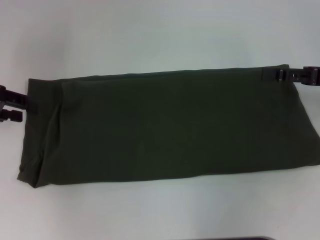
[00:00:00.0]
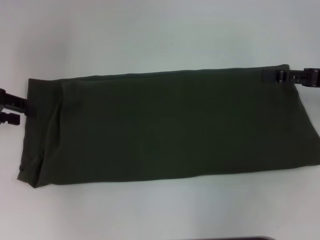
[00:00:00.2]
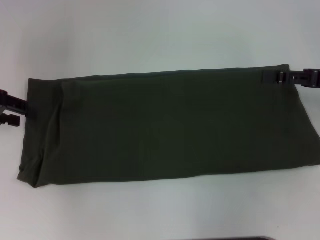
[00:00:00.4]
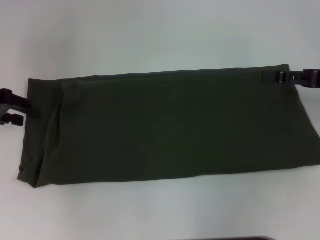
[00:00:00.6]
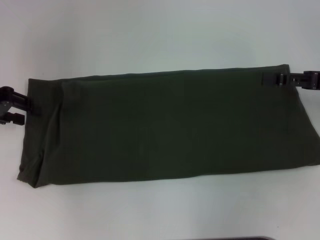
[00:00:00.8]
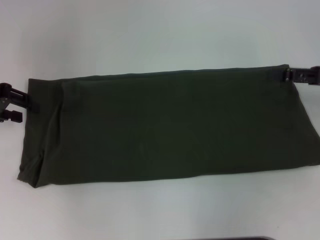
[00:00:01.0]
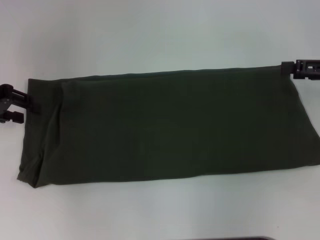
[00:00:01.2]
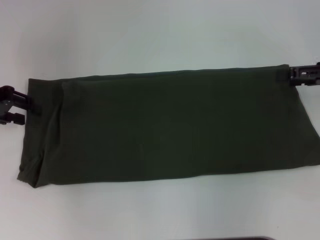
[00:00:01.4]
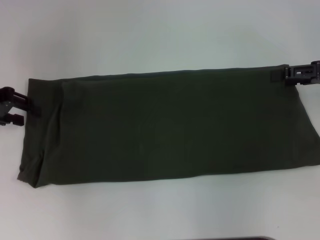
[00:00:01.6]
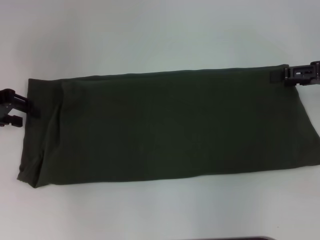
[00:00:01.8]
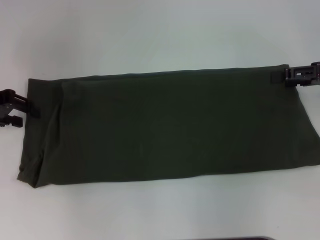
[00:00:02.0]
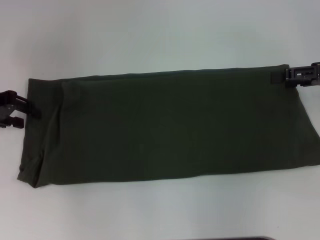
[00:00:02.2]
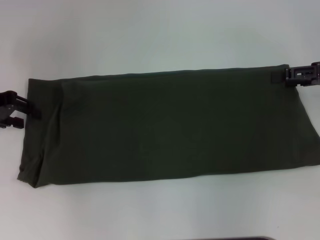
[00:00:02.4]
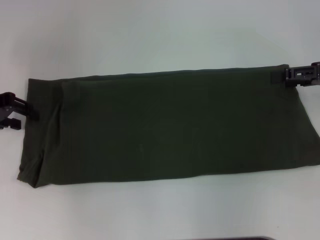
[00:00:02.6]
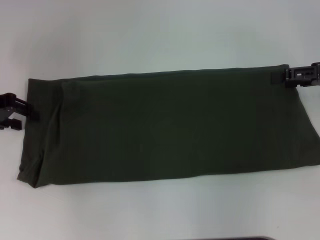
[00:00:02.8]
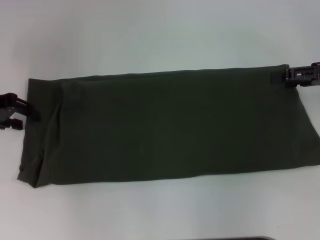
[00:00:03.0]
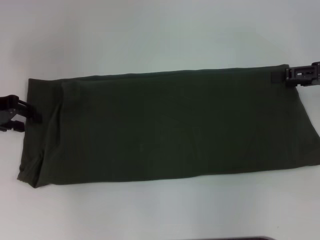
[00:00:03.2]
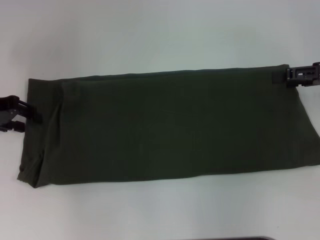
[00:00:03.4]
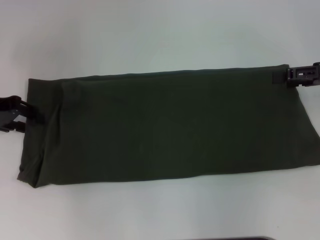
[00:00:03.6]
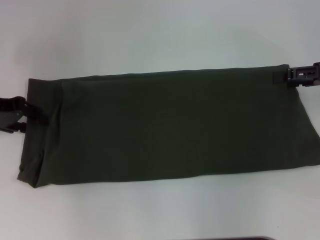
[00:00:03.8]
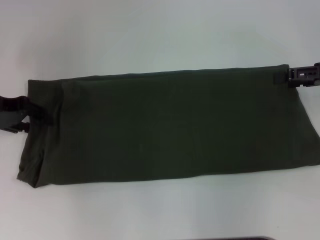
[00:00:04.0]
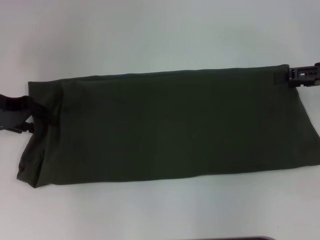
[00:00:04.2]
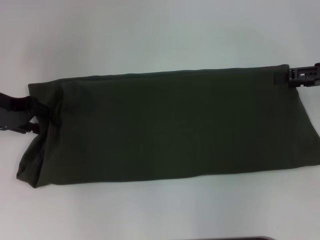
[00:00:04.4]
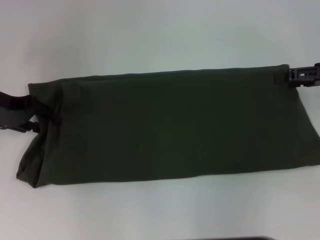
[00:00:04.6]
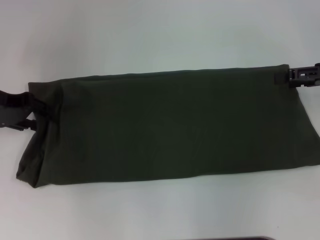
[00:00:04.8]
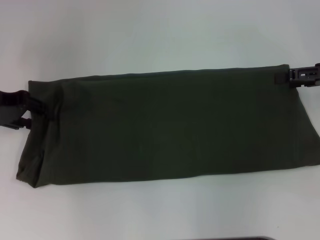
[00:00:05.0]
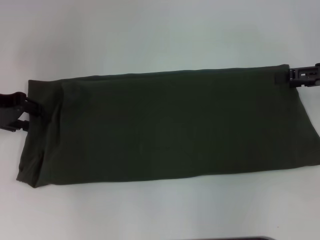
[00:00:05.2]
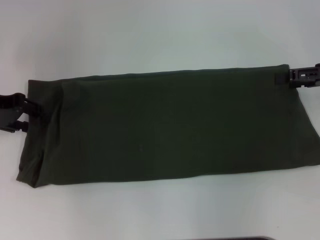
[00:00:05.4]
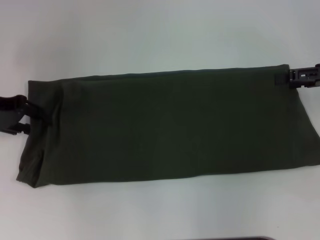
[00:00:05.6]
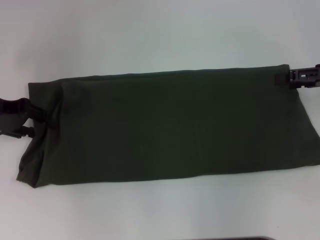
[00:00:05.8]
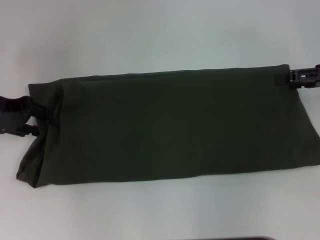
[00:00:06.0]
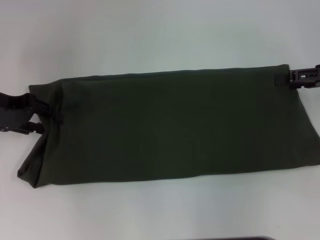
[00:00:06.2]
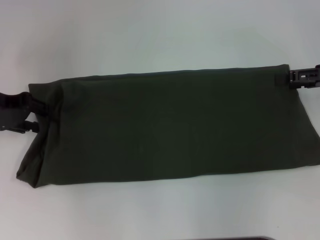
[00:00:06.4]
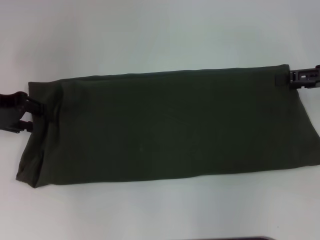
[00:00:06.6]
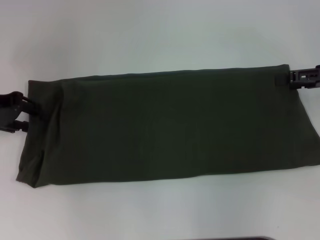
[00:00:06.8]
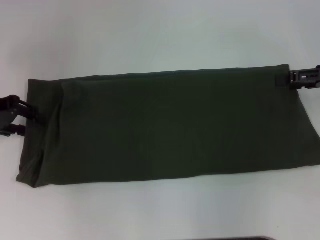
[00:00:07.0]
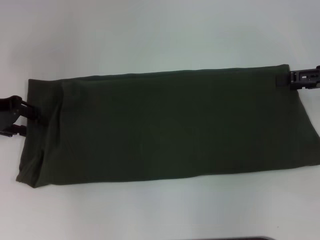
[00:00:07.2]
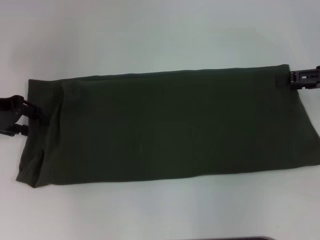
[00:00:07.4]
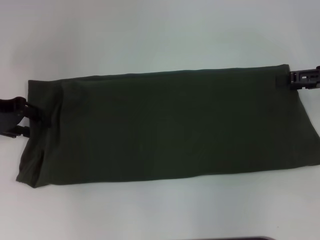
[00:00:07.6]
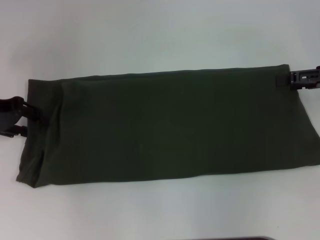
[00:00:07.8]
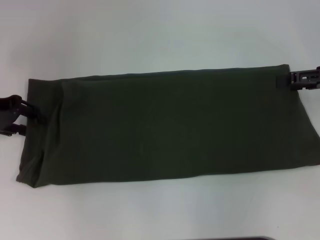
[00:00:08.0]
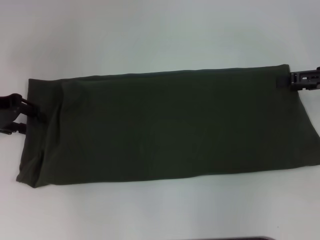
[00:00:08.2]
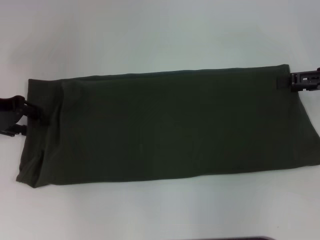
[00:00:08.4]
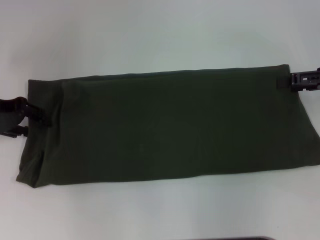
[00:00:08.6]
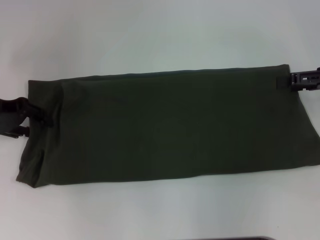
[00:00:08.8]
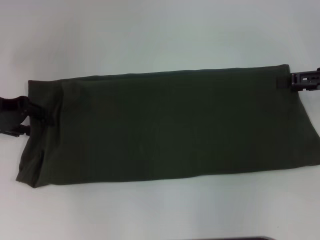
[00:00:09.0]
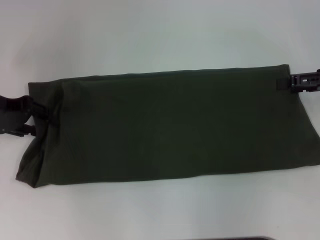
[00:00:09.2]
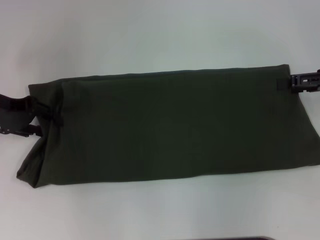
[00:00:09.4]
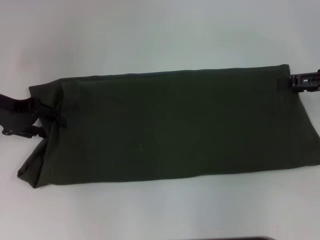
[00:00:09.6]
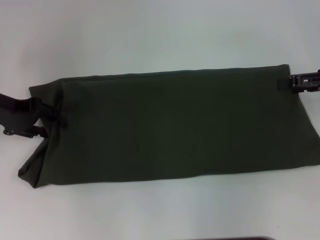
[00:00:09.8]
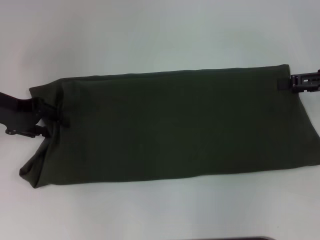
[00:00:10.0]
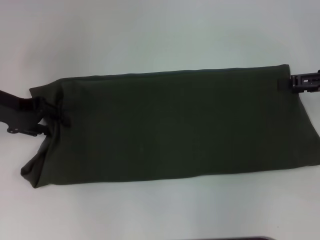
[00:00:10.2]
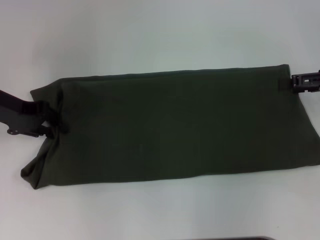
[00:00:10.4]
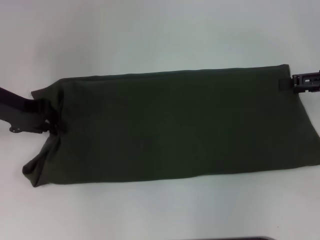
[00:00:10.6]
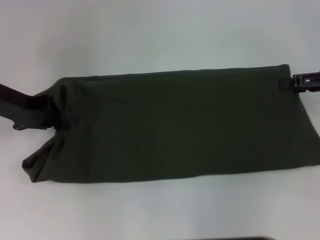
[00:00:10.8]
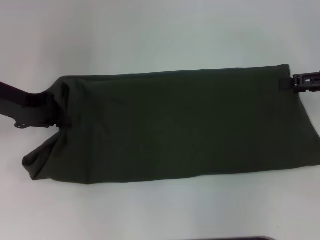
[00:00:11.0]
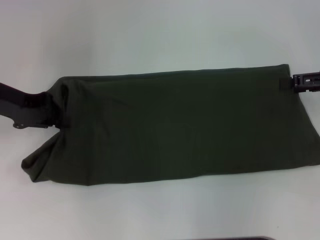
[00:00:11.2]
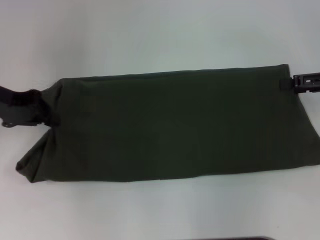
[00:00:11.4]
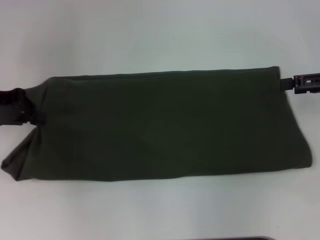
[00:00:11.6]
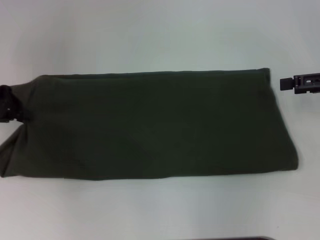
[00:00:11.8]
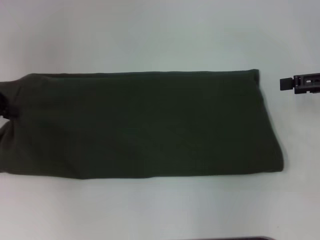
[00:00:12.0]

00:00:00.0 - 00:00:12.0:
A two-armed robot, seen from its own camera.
00:00:00.0 - 00:00:01.6: The grippers stay close to where they were, moving slightly.
00:00:01.6 - 00:00:03.0: Neither gripper changes place.
00:00:03.0 - 00:00:04.4: The grippers stay close to where they were, moving slightly.
00:00:06.0 - 00:00:07.6: There are only small adjustments of the grippers.
00:00:07.6 - 00:00:09.0: The two grippers keep their place.
00:00:09.0 - 00:00:10.4: The grippers move only a little.
00:00:10.4 - 00:00:12.0: The left gripper moves to the left, roughly 5 cm, and closes its fingers.

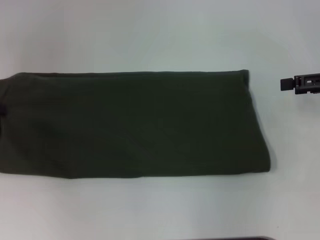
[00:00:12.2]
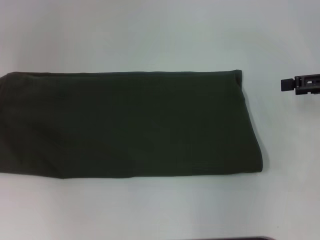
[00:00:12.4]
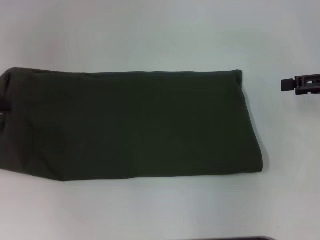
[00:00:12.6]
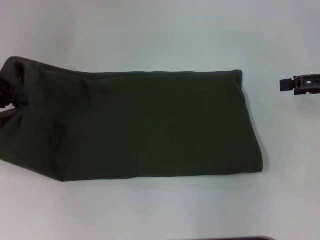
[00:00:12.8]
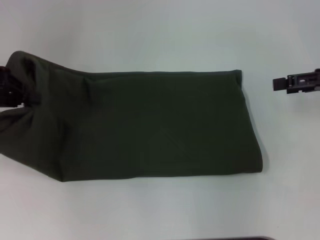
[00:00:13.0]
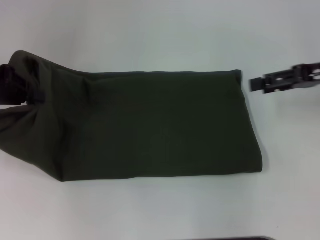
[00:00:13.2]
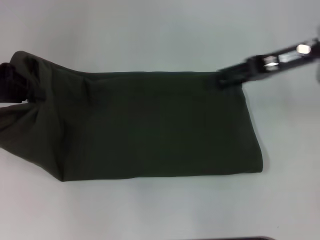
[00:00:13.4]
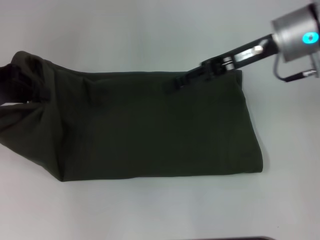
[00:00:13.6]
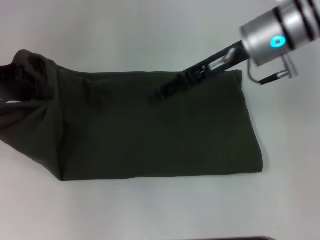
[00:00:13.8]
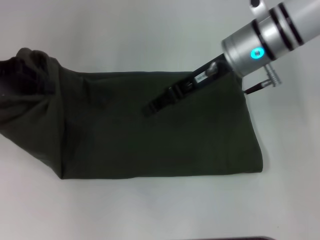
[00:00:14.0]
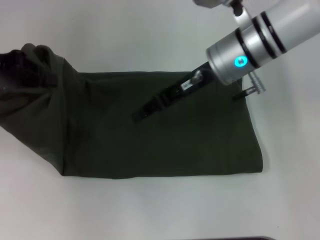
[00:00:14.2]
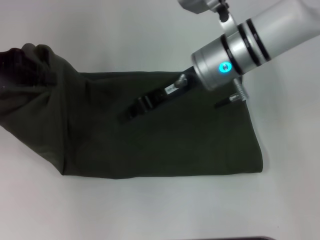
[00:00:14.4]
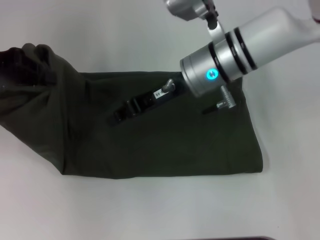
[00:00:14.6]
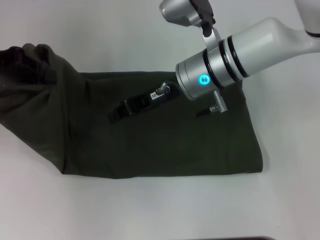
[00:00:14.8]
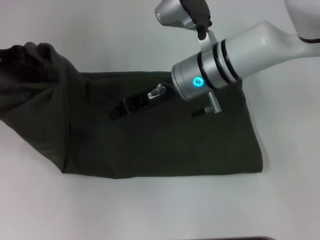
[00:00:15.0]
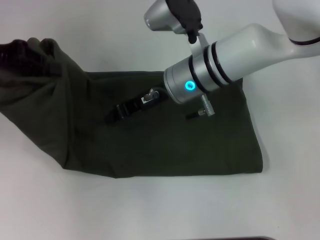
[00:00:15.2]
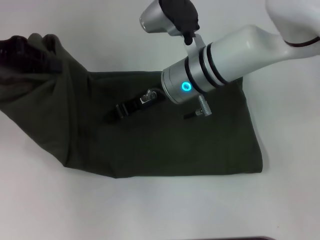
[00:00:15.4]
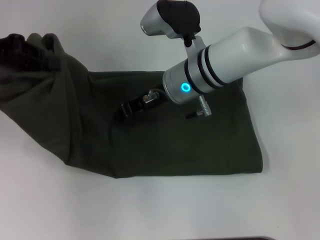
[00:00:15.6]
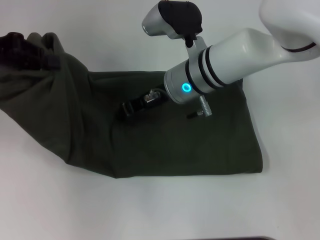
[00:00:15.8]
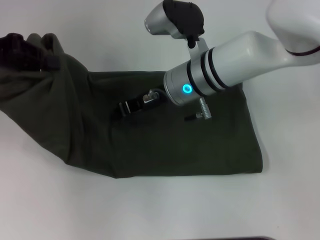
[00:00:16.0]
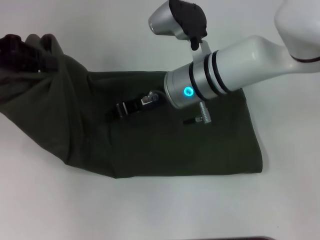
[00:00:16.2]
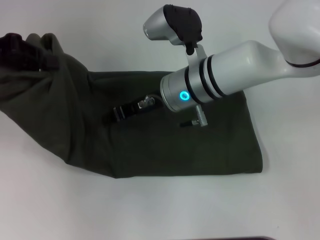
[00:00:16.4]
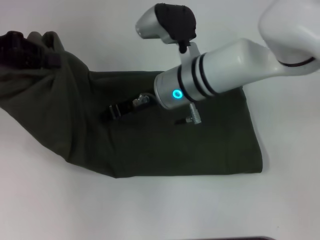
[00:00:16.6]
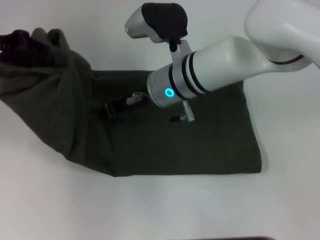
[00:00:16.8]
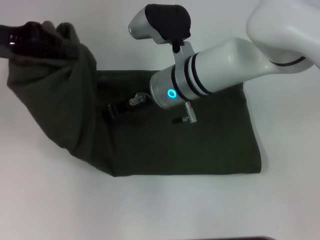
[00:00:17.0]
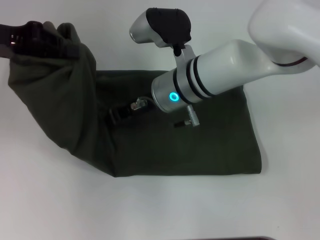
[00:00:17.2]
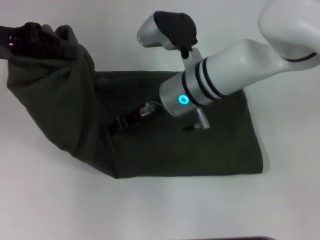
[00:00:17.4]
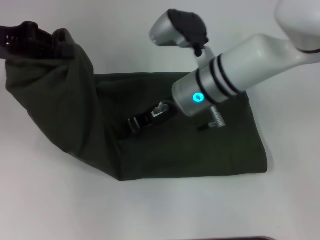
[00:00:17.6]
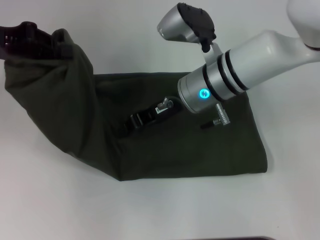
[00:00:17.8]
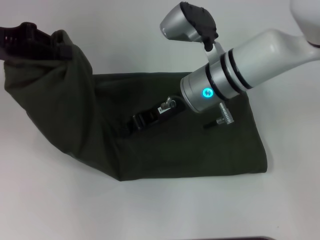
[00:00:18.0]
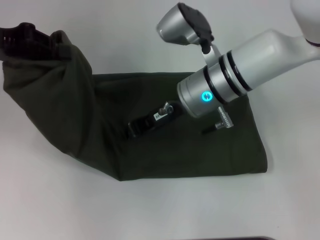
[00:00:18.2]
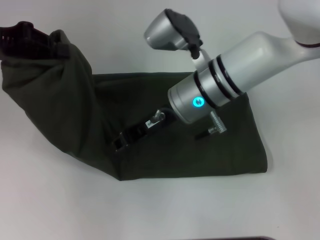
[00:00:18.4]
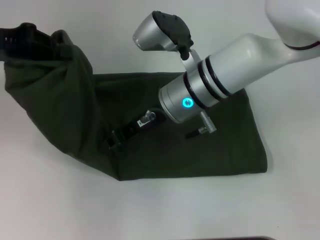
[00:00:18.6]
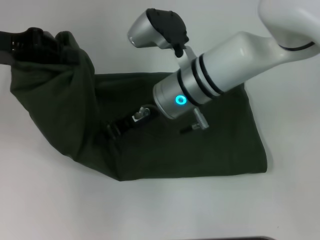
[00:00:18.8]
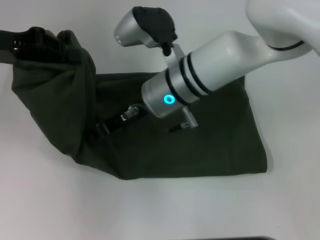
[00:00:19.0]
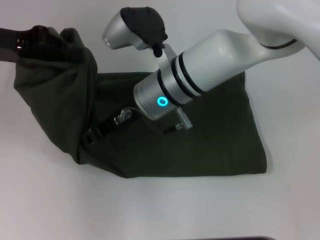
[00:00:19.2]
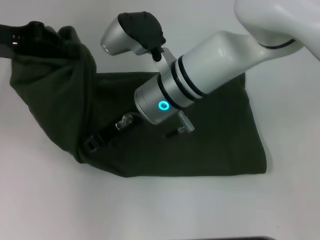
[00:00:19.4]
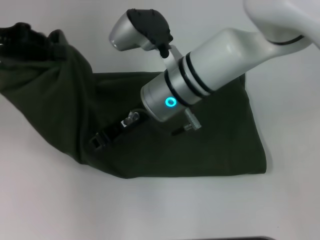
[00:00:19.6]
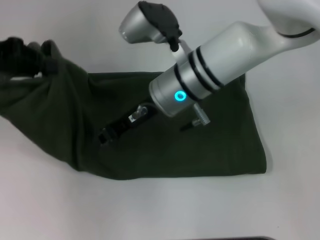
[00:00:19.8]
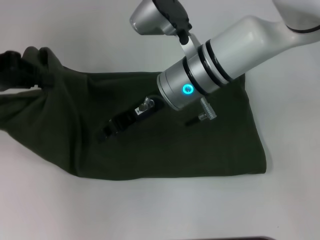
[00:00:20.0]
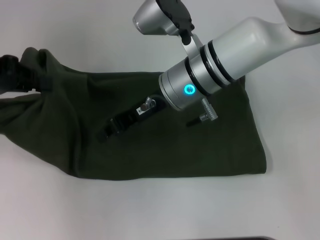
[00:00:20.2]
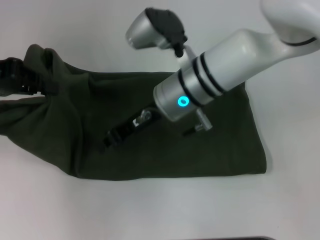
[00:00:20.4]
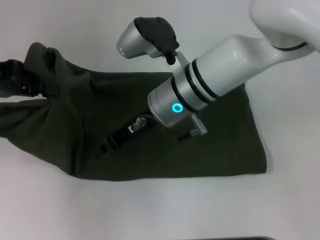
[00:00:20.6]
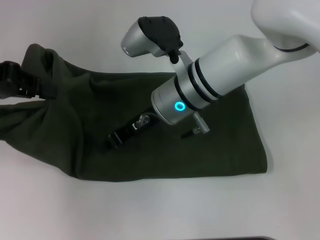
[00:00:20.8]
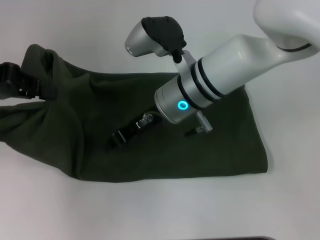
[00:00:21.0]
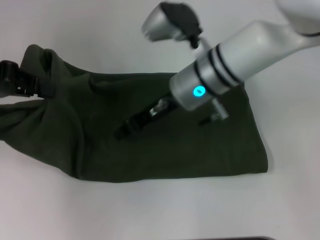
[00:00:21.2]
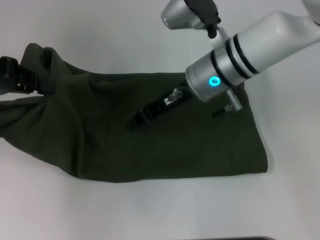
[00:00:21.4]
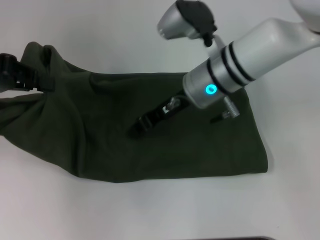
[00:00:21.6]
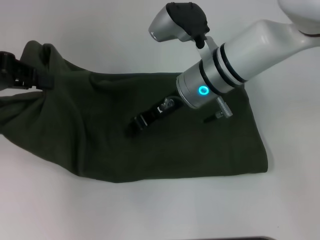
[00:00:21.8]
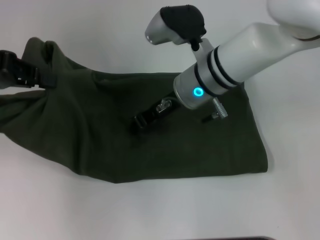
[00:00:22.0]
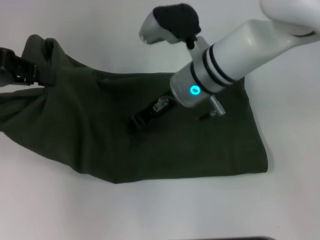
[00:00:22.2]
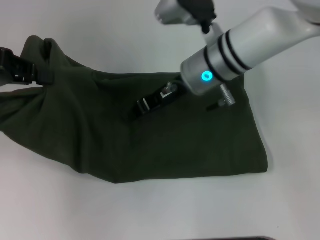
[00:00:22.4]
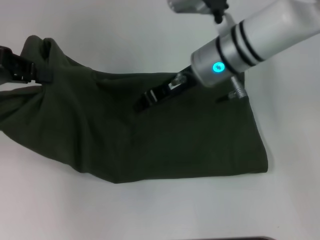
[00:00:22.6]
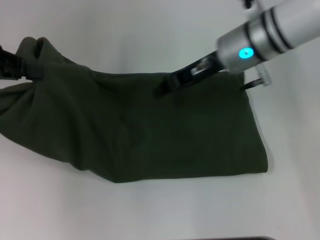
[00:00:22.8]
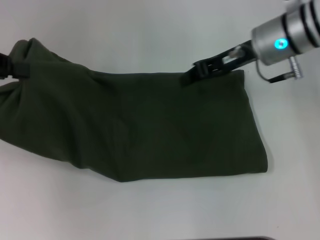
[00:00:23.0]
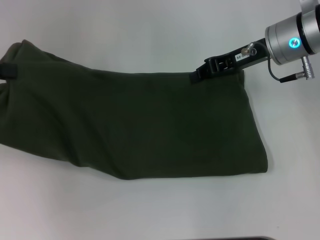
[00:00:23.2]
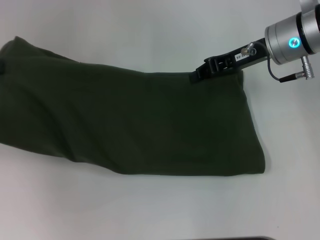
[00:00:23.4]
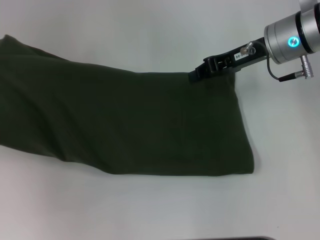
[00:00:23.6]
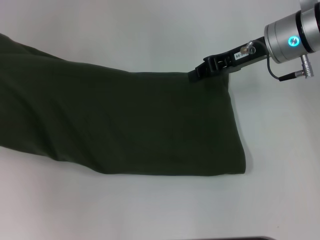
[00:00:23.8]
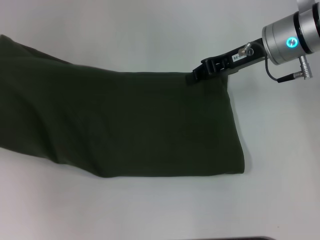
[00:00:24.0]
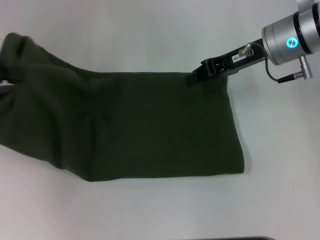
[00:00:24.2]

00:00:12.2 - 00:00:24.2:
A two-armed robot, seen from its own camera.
00:00:12.2 - 00:00:13.8: The right gripper shifts some 20 cm to the left, while the left gripper travels to the right by about 5 cm.
00:00:13.8 - 00:00:15.2: The right gripper moves to the left and downward, about 10 cm, and closes its fingers.
00:00:15.2 - 00:00:18.2: The grippers make only small movements.
00:00:19.8 - 00:00:21.2: There are only small adjustments of the grippers.
00:00:21.2 - 00:00:22.6: The grippers move only a little.
00:00:22.6 - 00:00:24.2: The right gripper is displaced to the right by approximately 10 cm.
